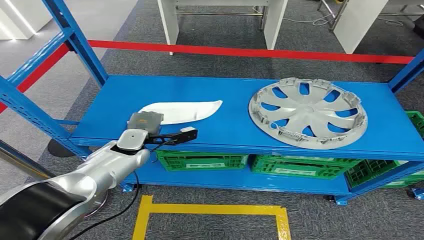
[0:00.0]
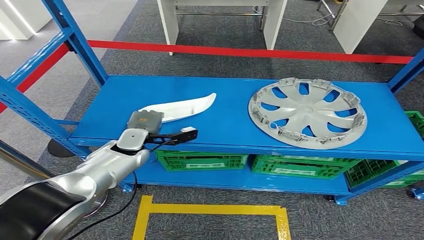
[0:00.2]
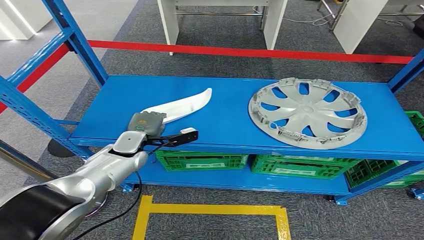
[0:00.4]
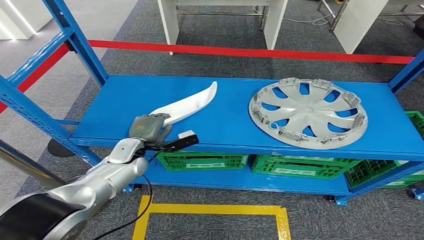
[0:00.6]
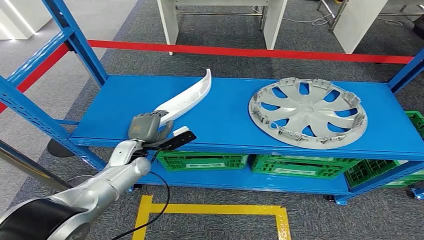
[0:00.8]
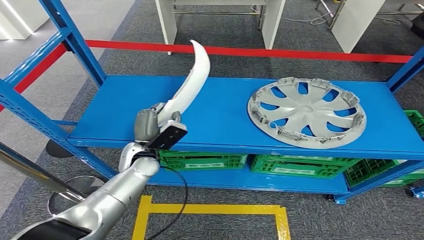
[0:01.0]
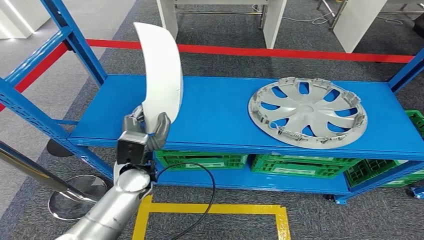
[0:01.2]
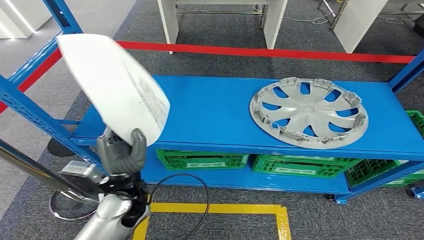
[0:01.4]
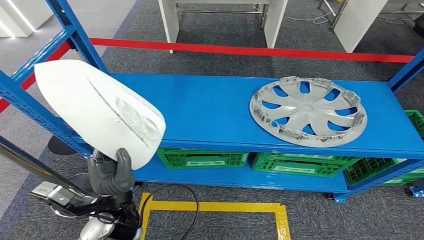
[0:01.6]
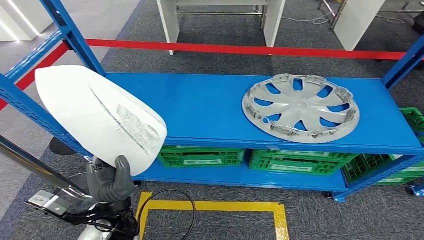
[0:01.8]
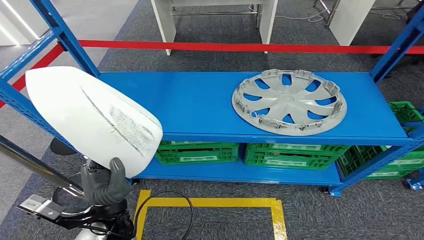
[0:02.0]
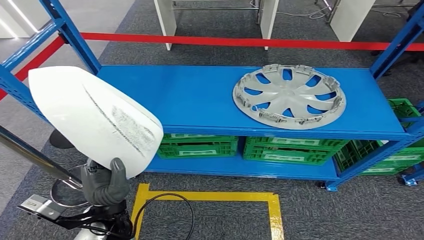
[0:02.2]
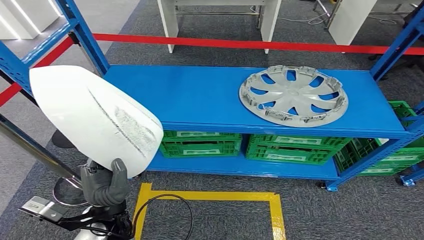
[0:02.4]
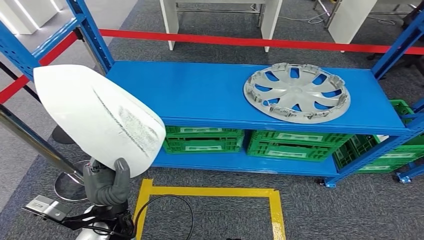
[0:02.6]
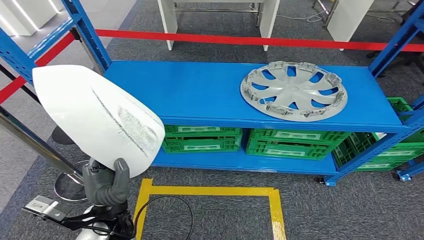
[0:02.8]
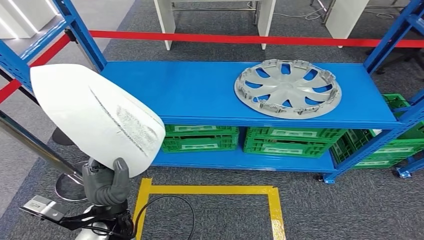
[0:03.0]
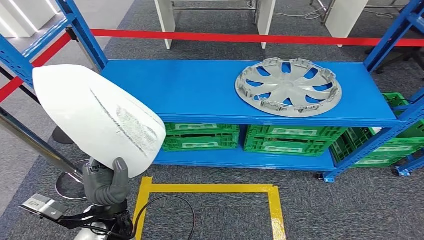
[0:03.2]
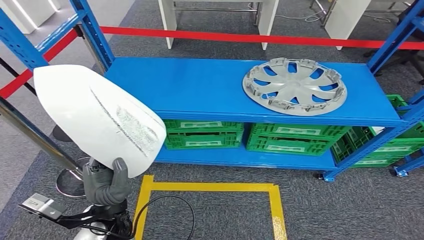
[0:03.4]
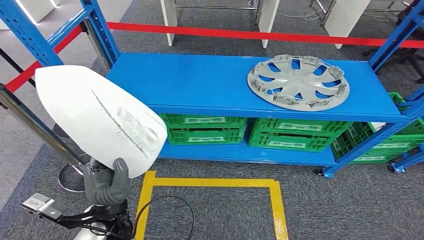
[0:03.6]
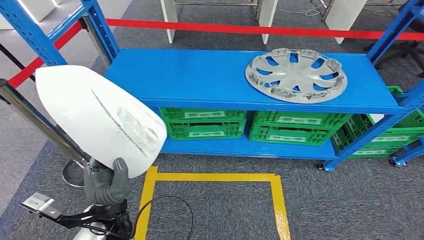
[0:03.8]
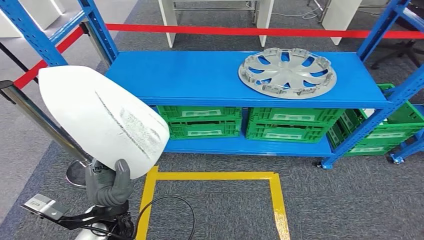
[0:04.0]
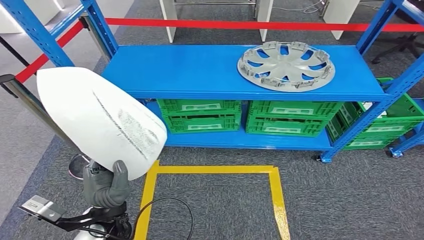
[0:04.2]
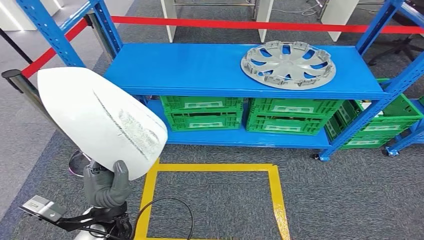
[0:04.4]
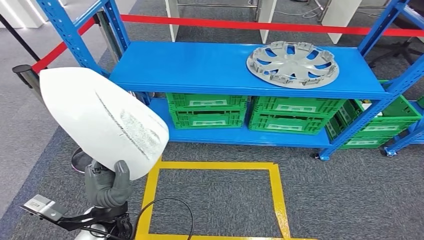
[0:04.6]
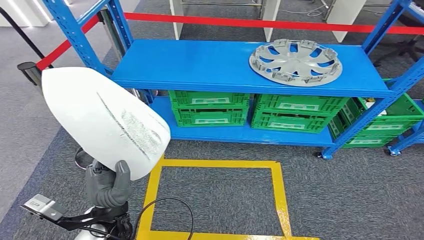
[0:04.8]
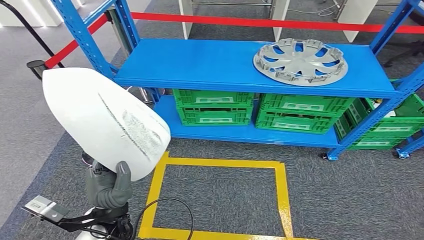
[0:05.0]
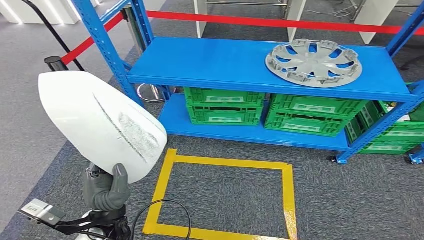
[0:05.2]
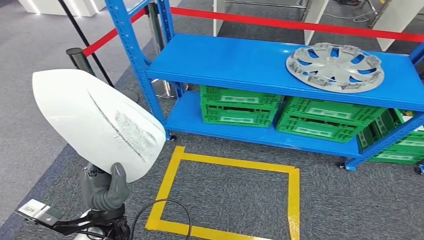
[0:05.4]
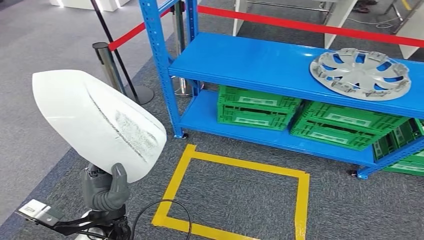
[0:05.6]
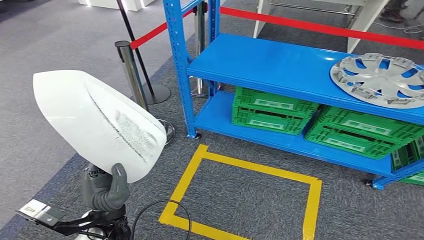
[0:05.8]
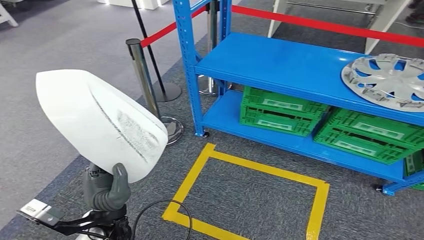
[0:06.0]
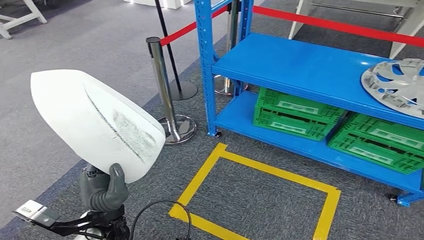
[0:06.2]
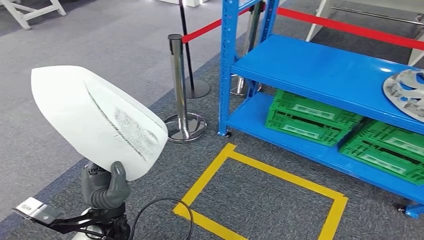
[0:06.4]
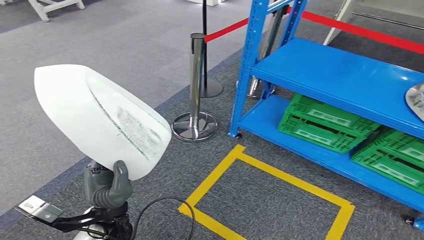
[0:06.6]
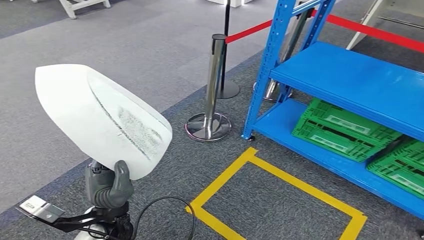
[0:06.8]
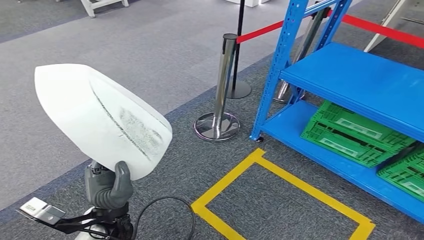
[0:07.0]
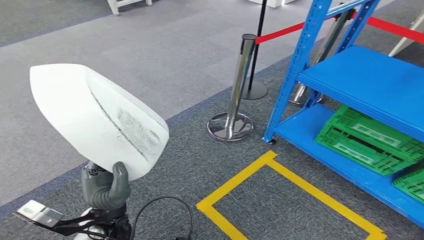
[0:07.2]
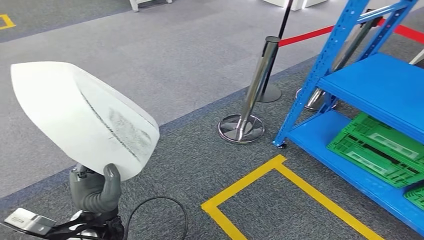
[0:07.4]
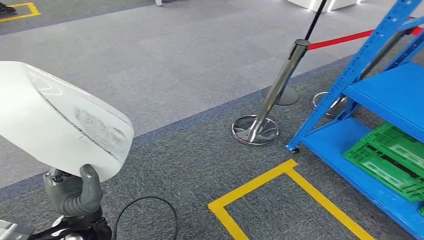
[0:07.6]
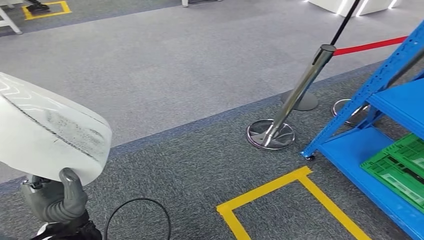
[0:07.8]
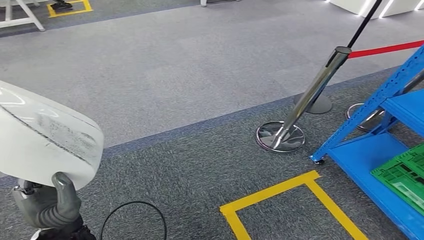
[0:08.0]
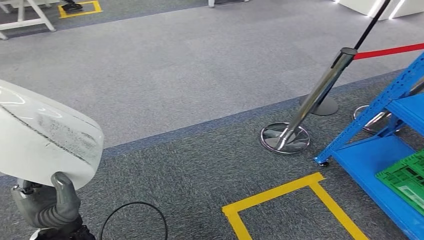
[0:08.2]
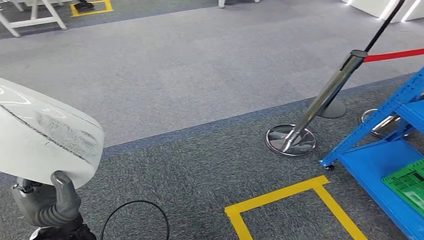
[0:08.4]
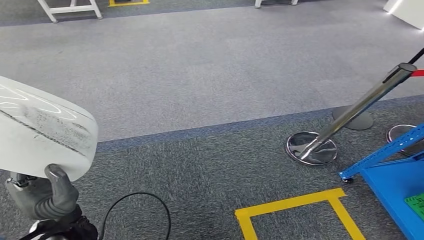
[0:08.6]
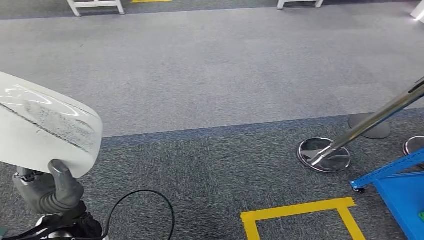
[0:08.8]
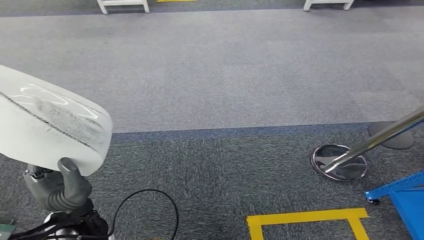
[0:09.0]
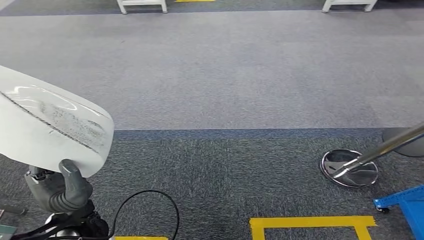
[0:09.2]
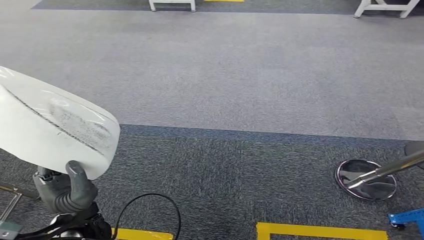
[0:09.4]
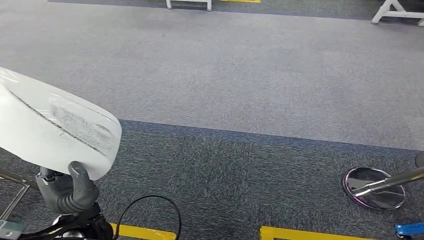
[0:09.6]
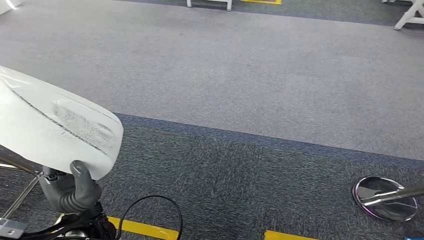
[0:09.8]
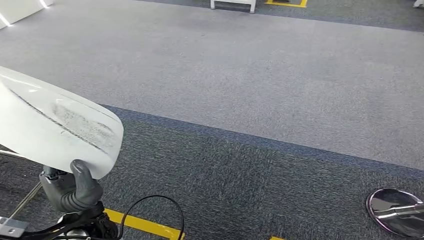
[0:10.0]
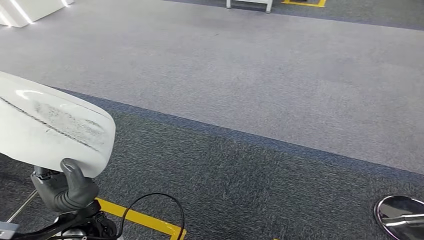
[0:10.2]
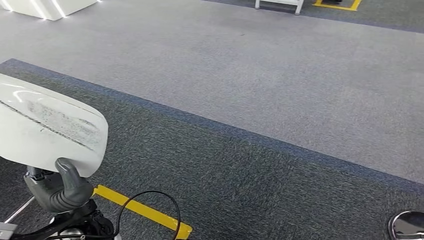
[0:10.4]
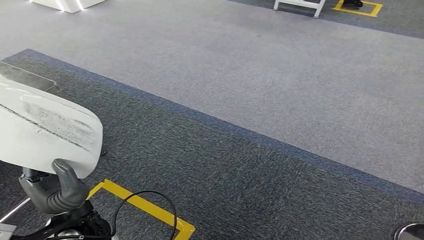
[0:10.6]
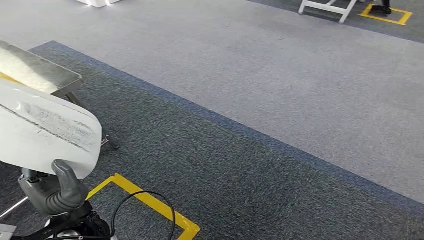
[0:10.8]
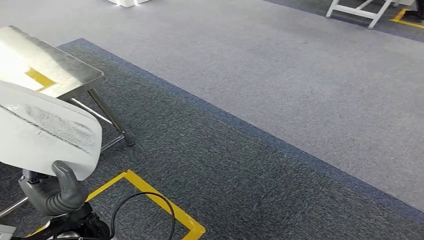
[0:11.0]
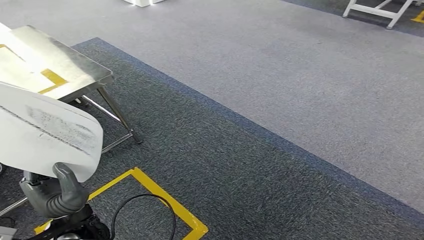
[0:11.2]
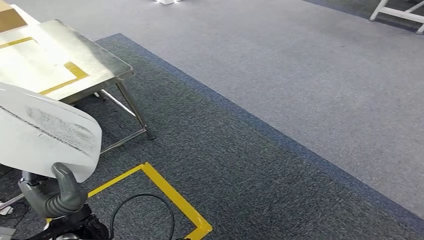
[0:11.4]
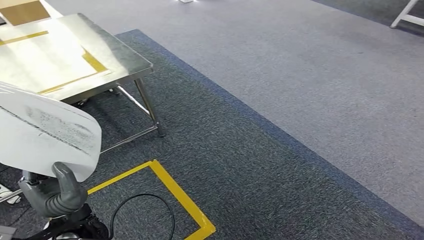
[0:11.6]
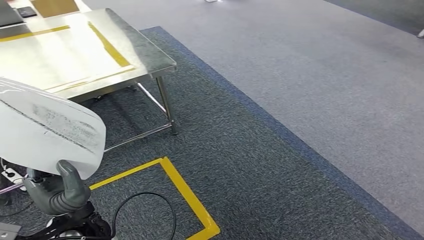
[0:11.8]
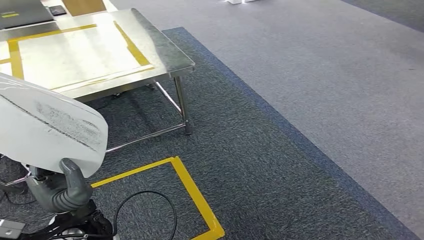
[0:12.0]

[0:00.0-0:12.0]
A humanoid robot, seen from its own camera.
Step, 0:00.0 to 0:02.4: Pick up the small component from the shelf.

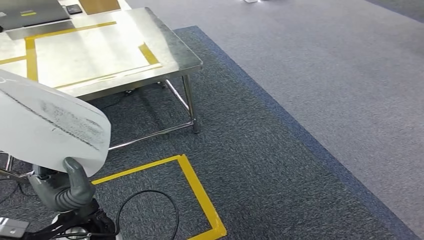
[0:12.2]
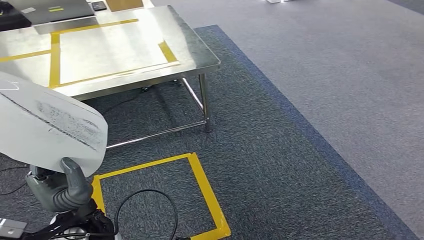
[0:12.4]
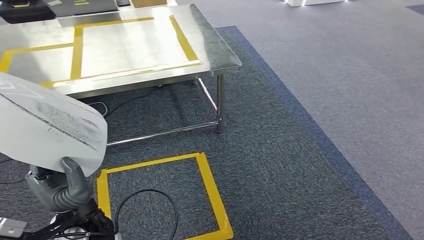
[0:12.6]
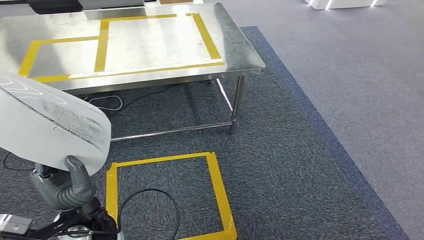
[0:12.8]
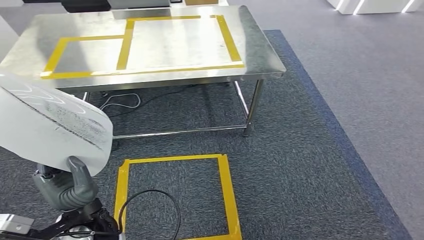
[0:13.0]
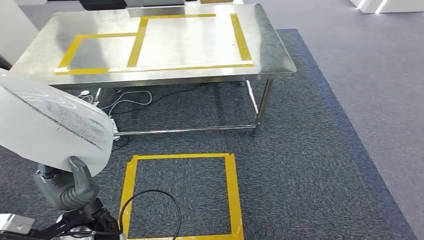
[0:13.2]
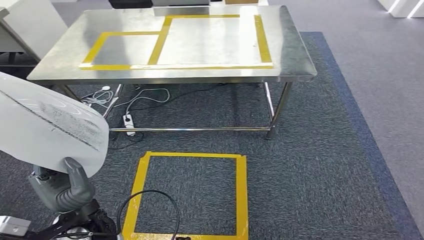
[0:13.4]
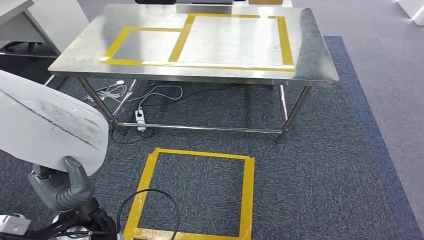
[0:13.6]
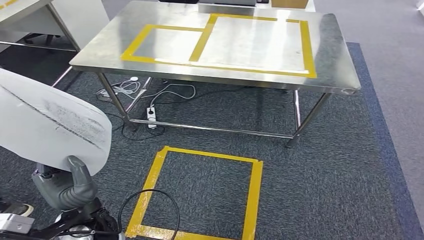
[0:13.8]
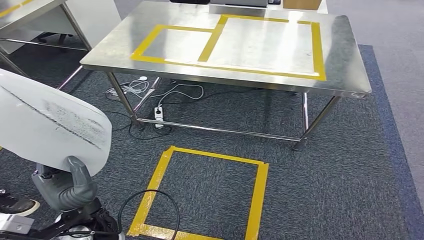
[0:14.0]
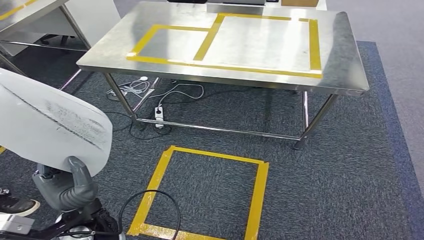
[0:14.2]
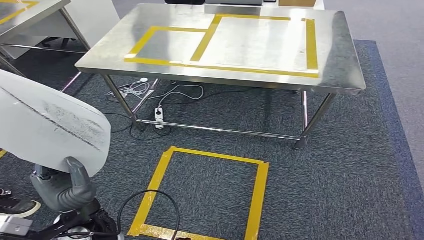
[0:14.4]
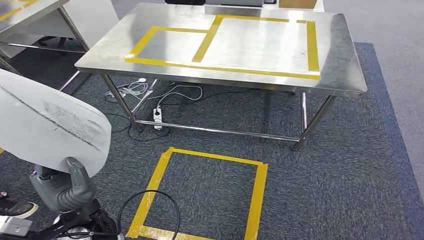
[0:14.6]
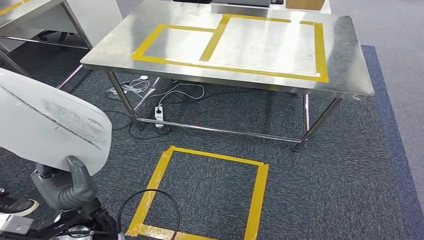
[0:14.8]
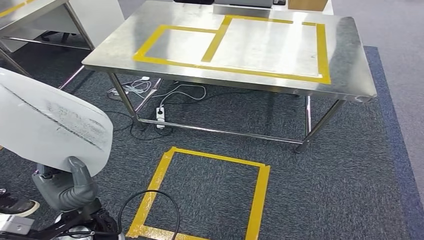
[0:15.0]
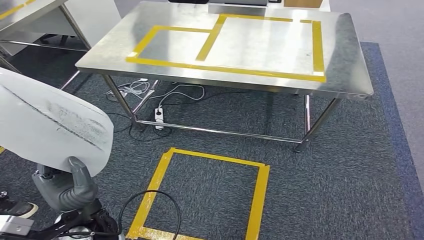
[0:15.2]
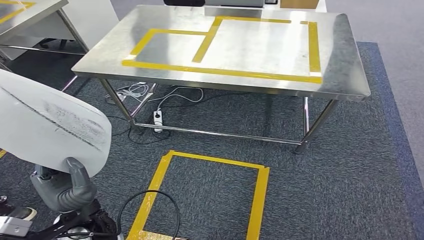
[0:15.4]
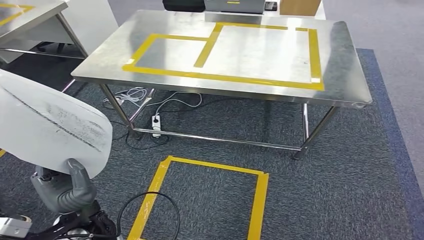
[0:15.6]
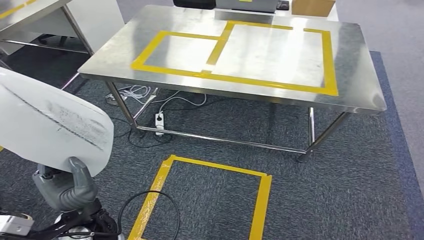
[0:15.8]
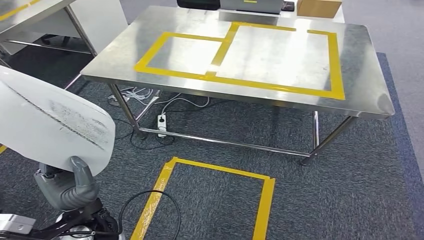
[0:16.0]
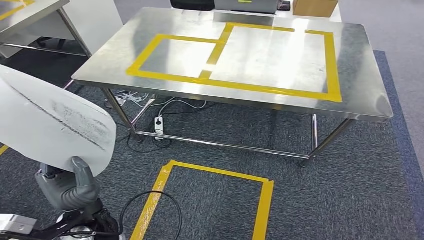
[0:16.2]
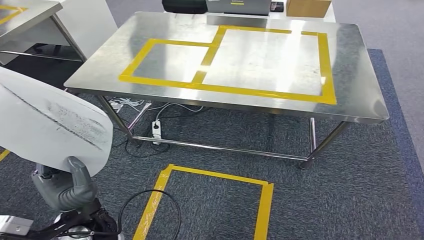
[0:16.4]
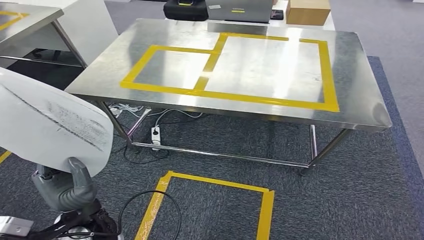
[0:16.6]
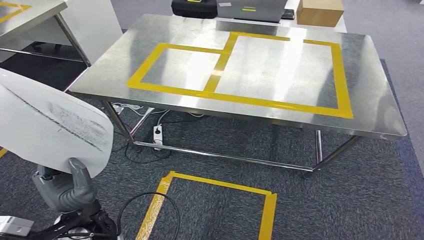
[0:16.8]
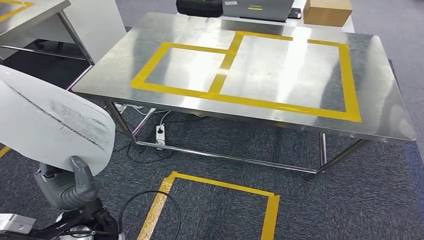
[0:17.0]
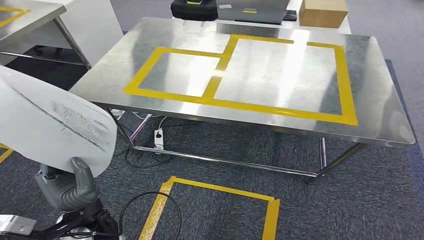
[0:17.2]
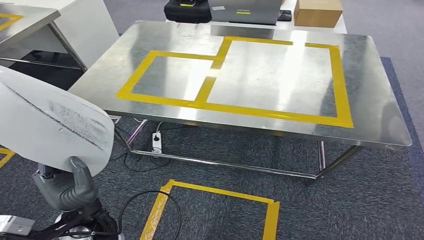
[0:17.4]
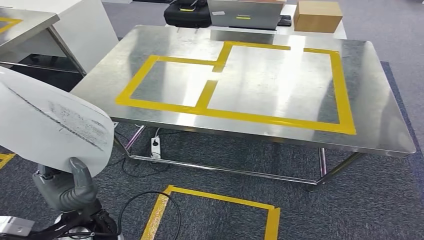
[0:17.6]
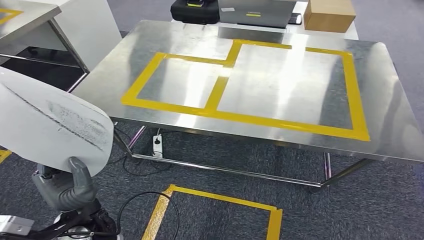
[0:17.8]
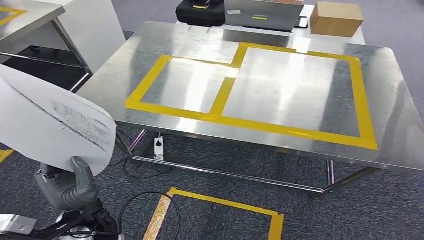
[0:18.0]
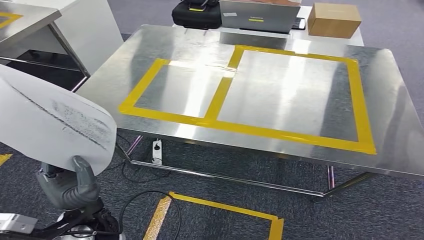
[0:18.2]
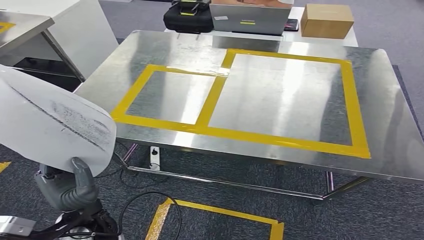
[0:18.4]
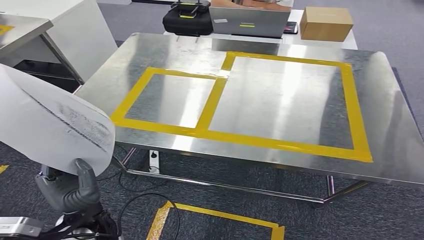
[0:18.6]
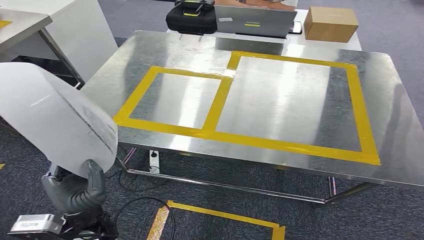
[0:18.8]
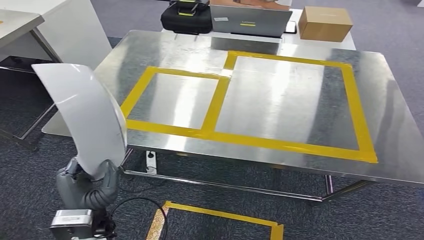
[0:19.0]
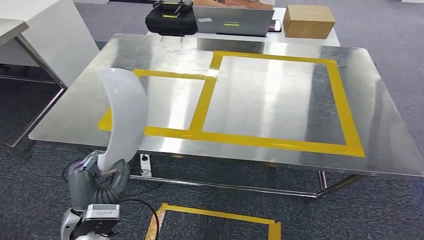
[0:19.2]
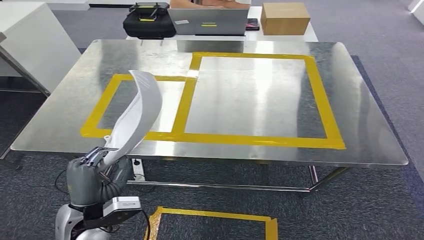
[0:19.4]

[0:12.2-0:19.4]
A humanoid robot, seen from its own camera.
Step, 0:12.2 to 0:16.8: Move the small component to the workbench.
